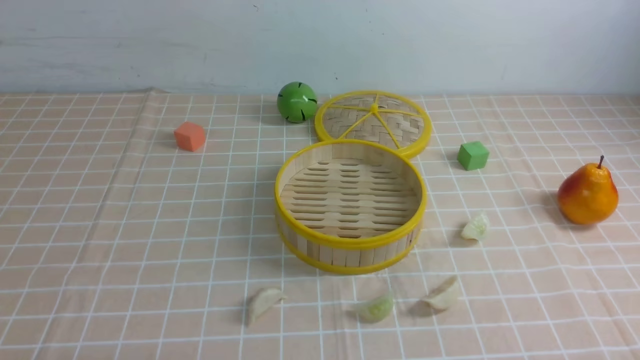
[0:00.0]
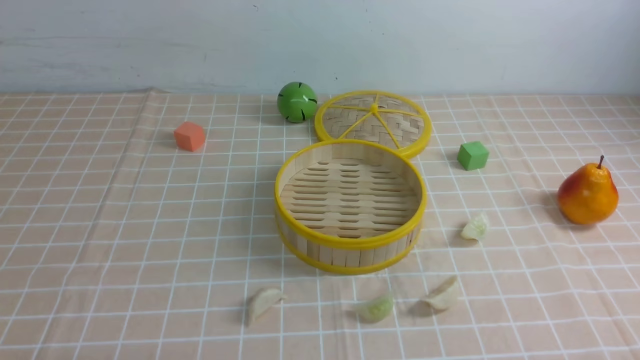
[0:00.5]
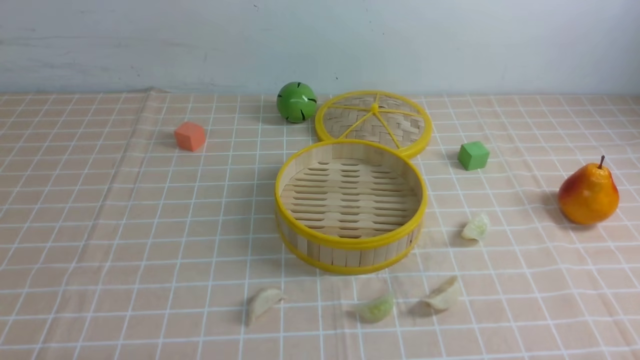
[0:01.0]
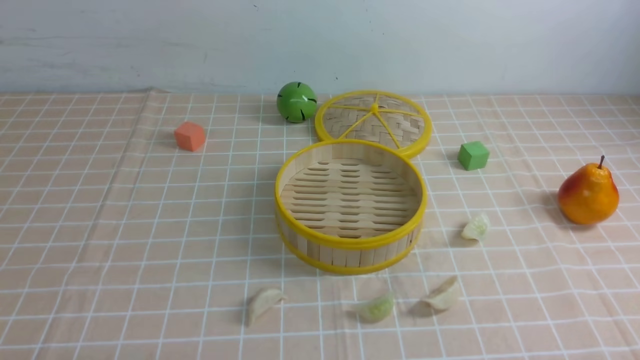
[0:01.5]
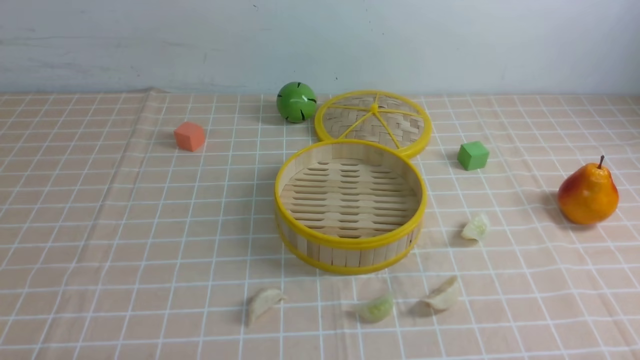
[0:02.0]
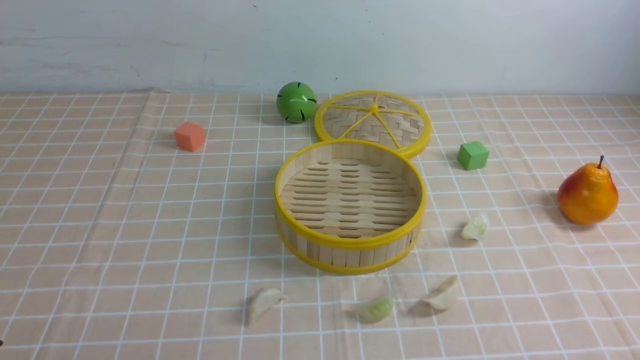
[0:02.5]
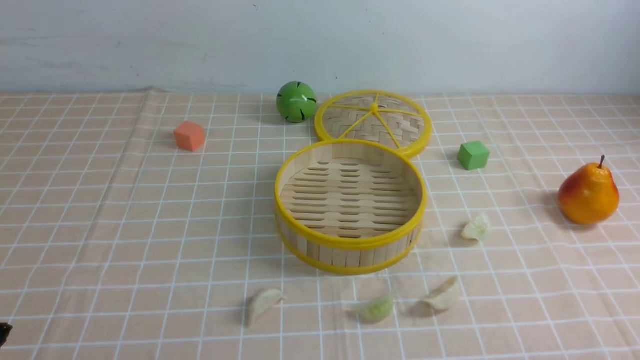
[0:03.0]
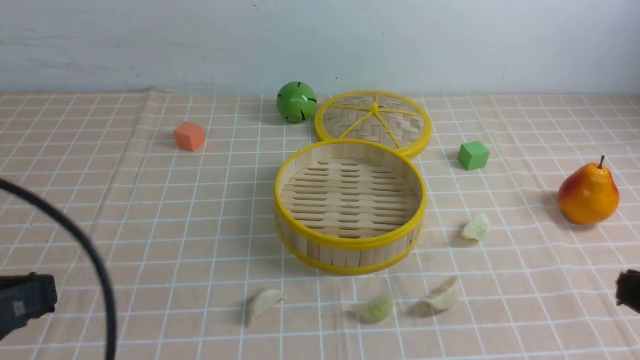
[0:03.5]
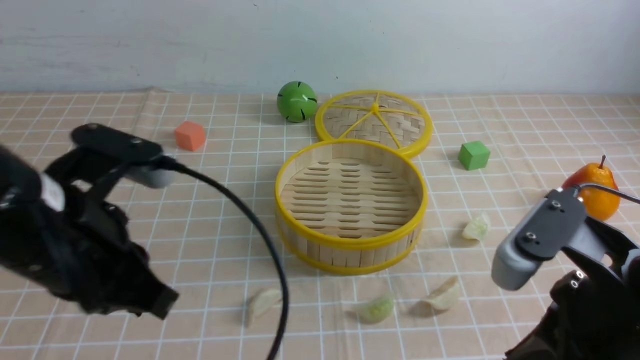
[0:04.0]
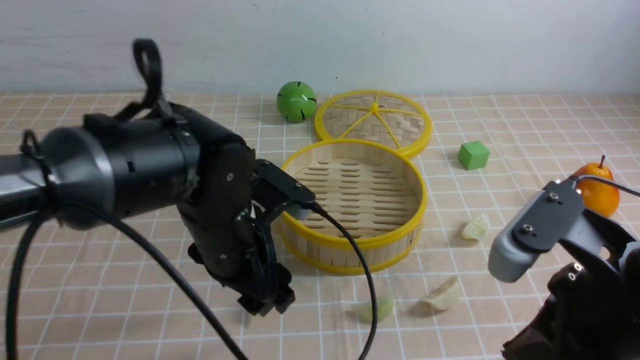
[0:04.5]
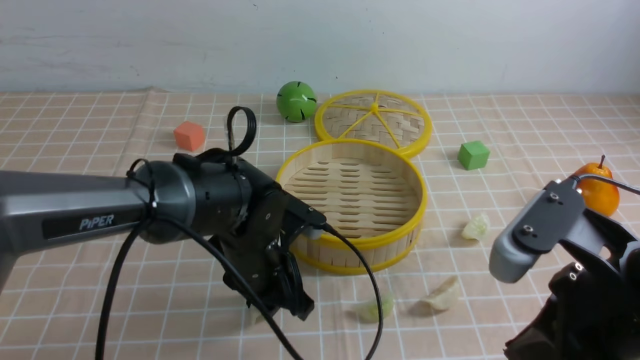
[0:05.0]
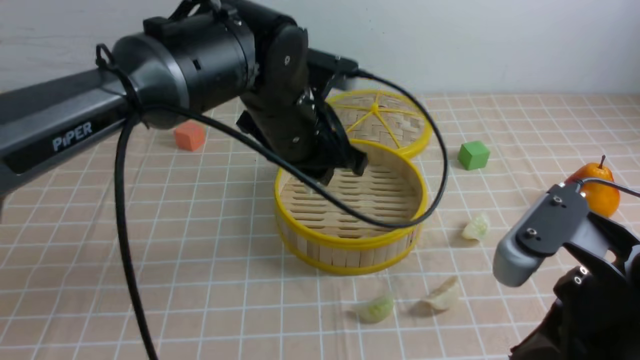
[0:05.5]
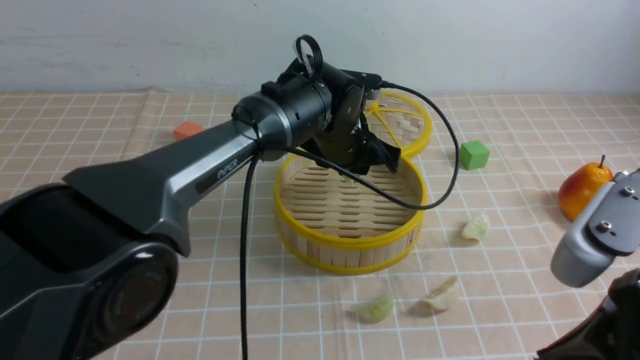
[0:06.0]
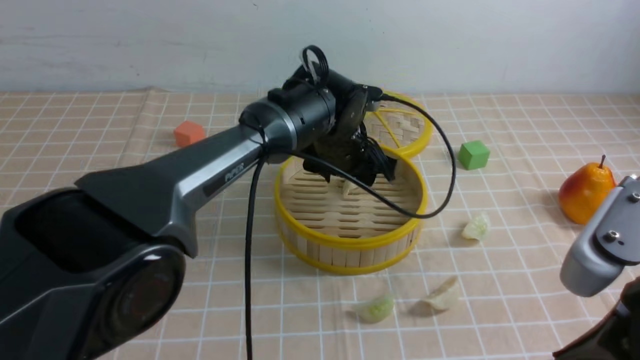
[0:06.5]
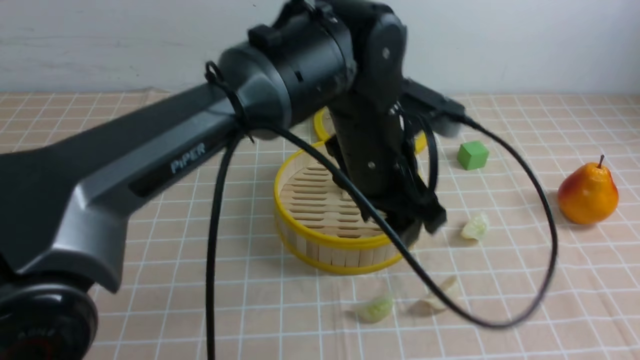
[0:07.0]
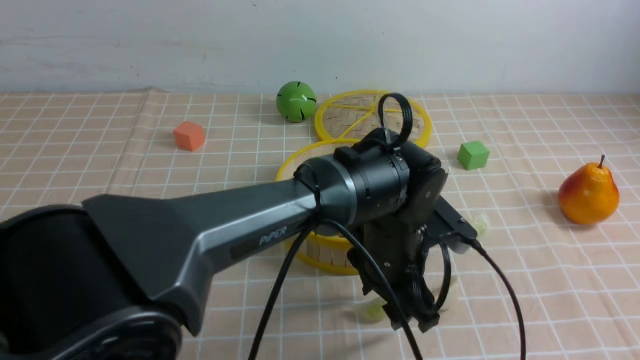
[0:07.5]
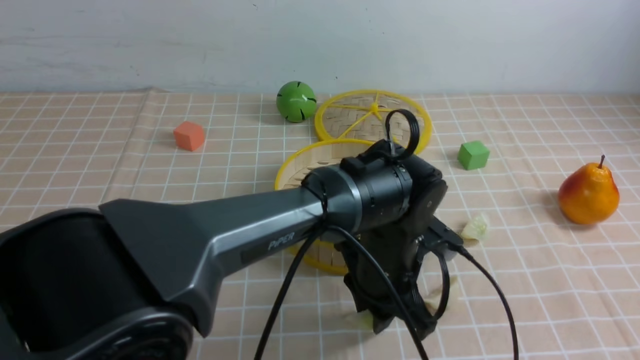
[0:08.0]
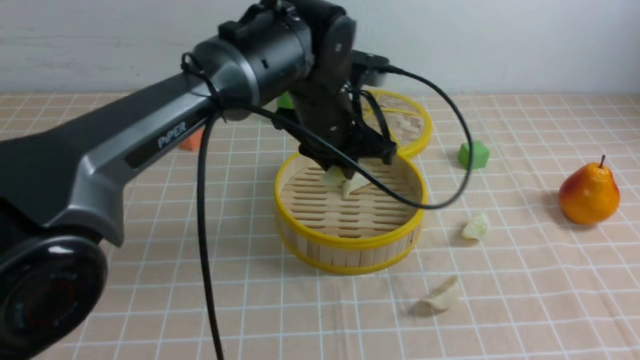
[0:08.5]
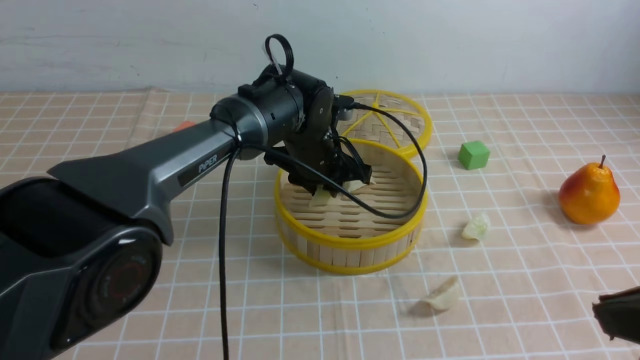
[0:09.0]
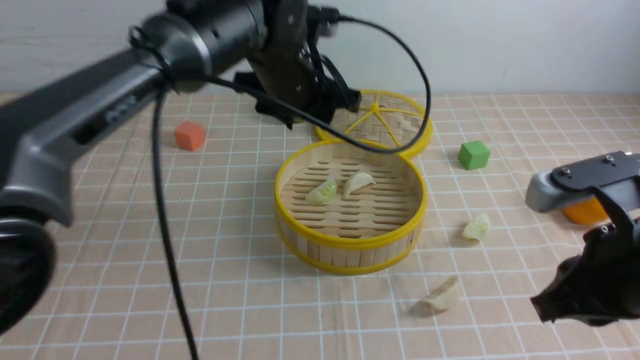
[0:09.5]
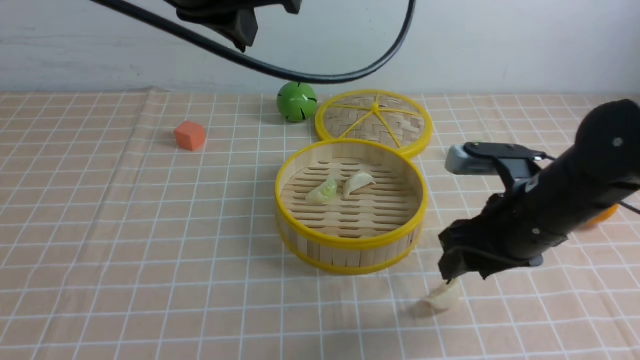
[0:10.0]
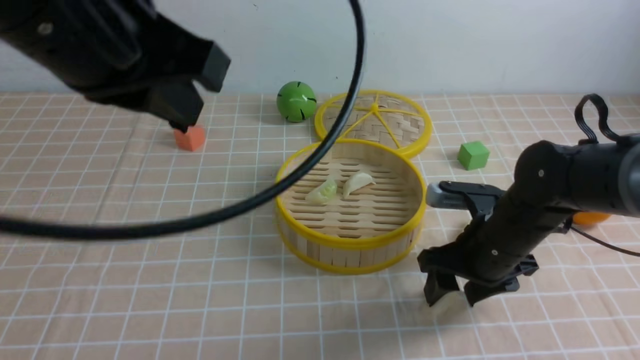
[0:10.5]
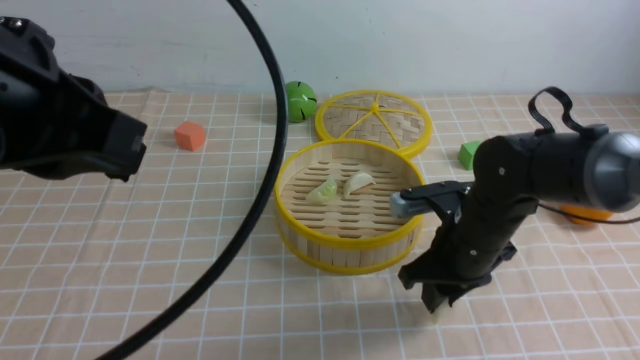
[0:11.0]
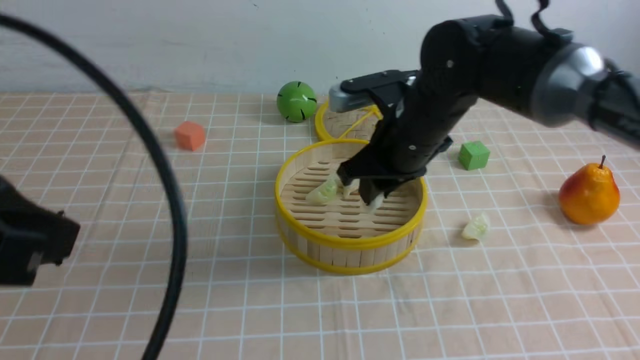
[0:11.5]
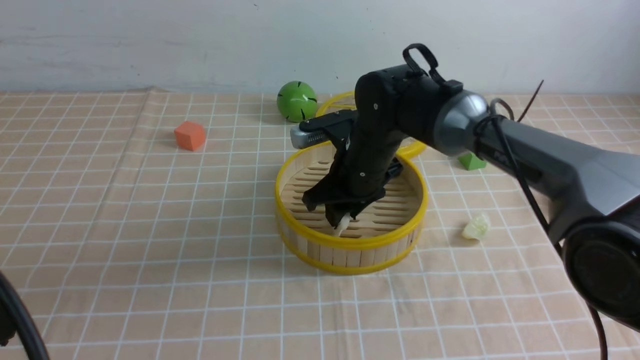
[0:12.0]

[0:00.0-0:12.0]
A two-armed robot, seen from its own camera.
Task of the whole recording: put the dumplings into the steamer on the table with the brown tablecloth.
Step, 0:00.0 to 0:04.5: use the left arm to grab a dumpling.
Step, 0:05.0 to 0:06.5: use the left arm to put the dumpling into the steamer.
Step, 0:07.0 to 0:07.5: use the left arm to grab a dumpling.
Step, 0:08.5 to 0:09.0: use the left arm to put the dumpling into the steamer.
Step, 0:09.5 to 0:10.5: use the right arm to grab a dumpling.
0:00.0 to 0:02.0: The two grippers keep their place.
0:02.0 to 0:04.0: The left gripper goes approximately 25 cm forward, upward and to the right, and closes. Meanwhile the right gripper is displaced upward, to the left and forward by approximately 20 cm, and closes its fingers.
0:04.0 to 0:06.0: The left gripper travels forward and to the right by some 30 cm, and opens its fingers.
0:06.0 to 0:08.0: The right gripper moves to the right, about 5 cm. The left gripper shifts approximately 15 cm backward and to the right, and opens, then closes once more.
0:08.0 to 0:10.0: The left gripper swings up and down, approximately 25 cm each way, with 2 reversals, and closes its fingers. The right gripper goes about 25 cm forward and downward, and opens up.
0:10.0 to 0:12.0: The left gripper heads backward and to the left, covering about 25 cm; the right gripper moves to the left and forward, some 20 cm.

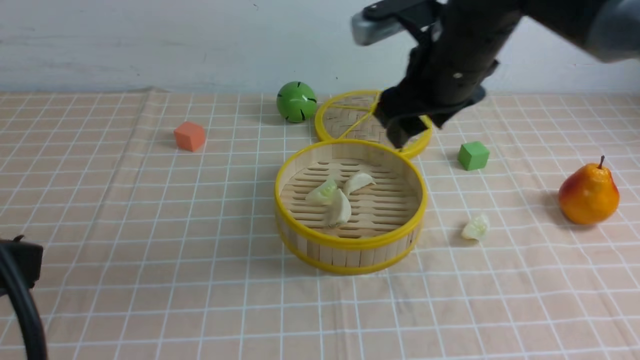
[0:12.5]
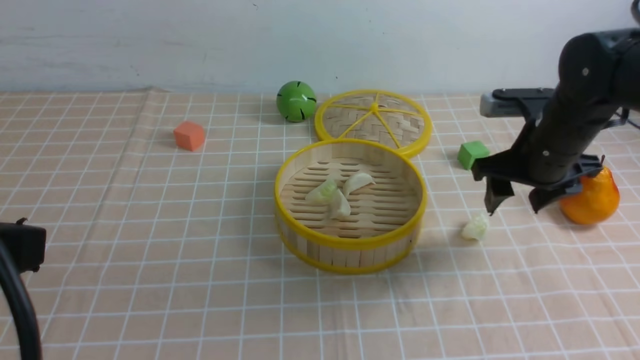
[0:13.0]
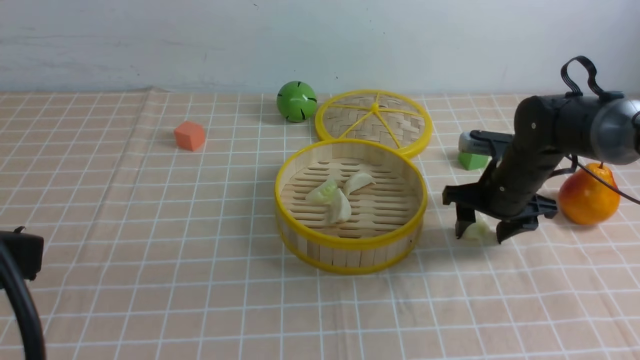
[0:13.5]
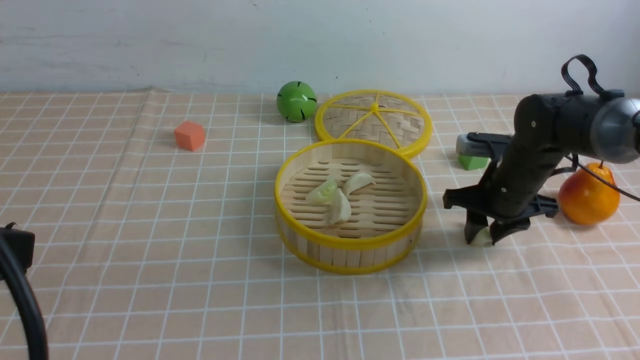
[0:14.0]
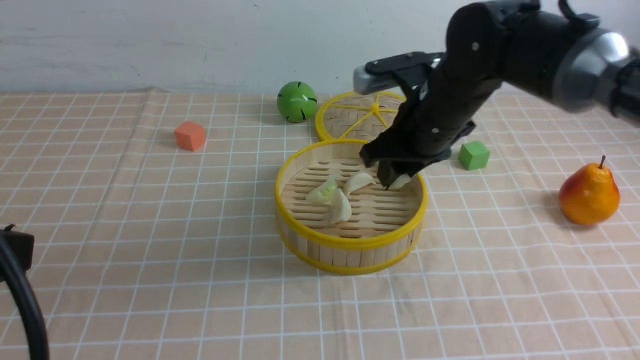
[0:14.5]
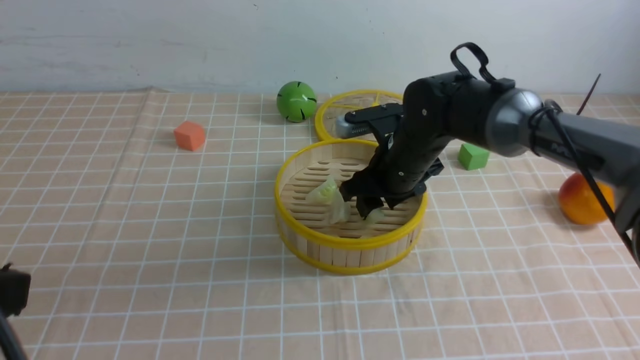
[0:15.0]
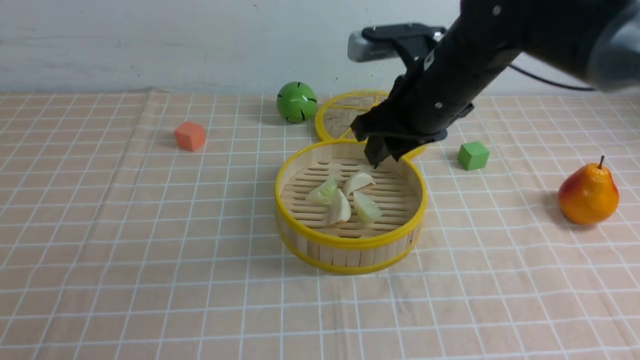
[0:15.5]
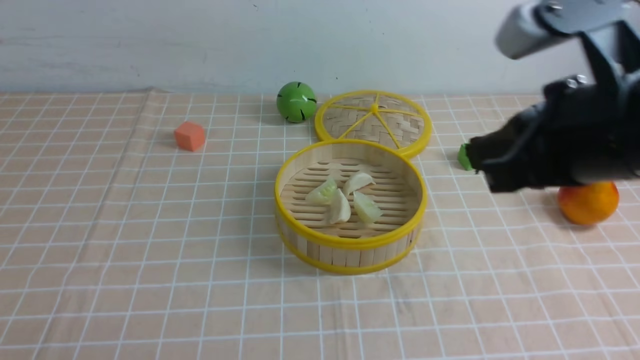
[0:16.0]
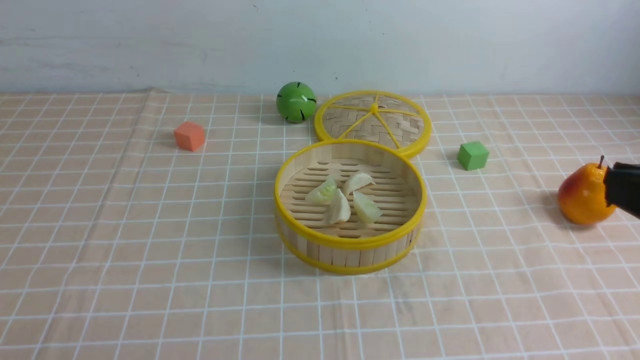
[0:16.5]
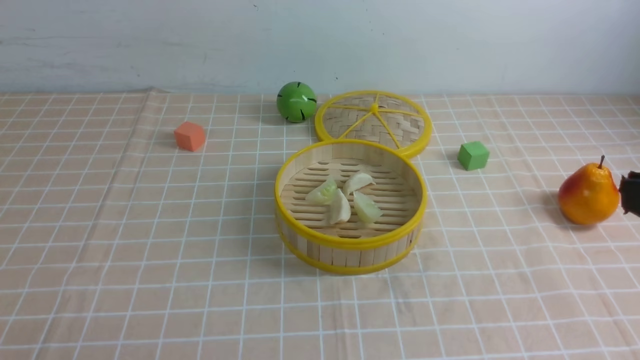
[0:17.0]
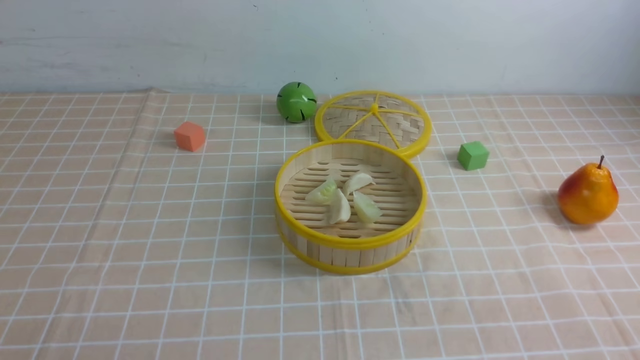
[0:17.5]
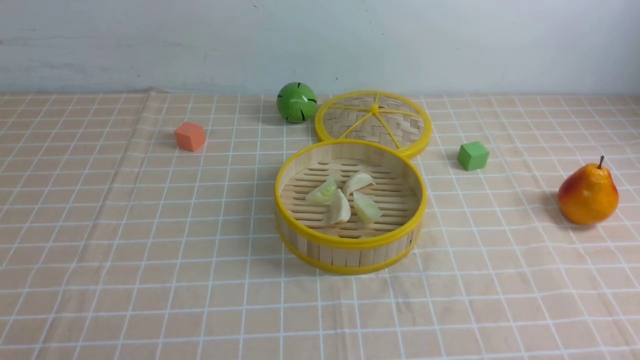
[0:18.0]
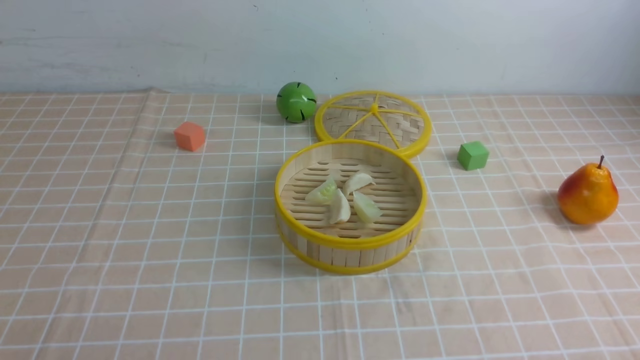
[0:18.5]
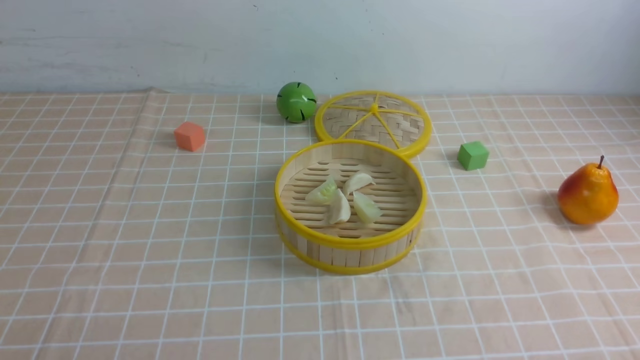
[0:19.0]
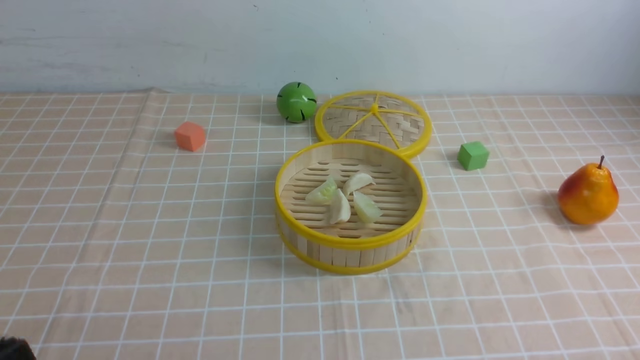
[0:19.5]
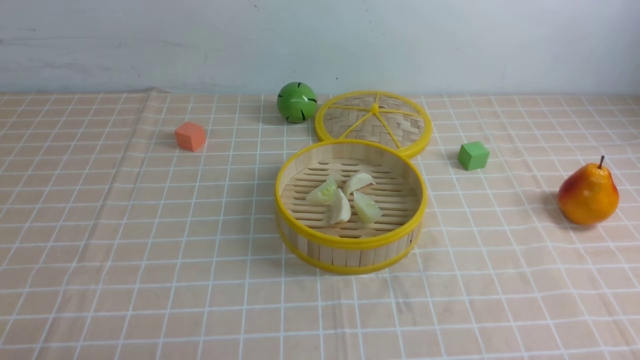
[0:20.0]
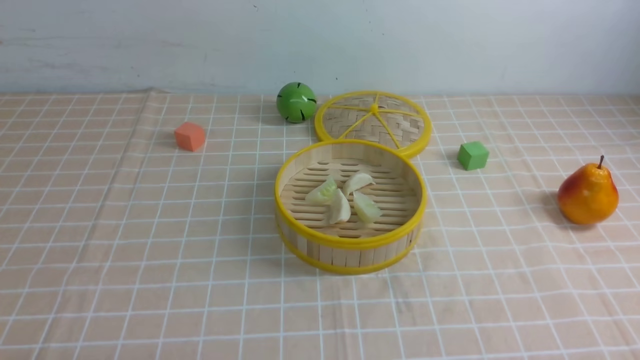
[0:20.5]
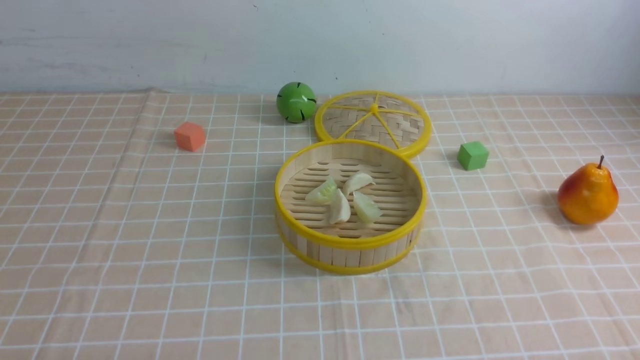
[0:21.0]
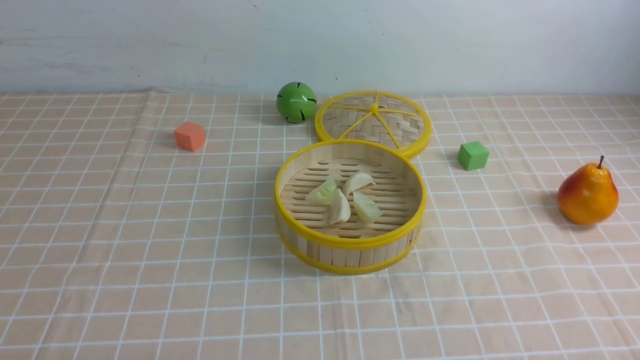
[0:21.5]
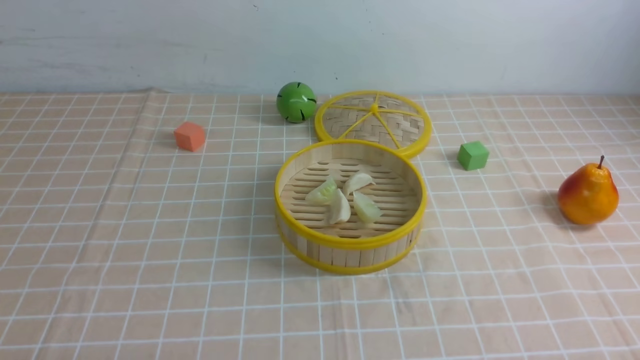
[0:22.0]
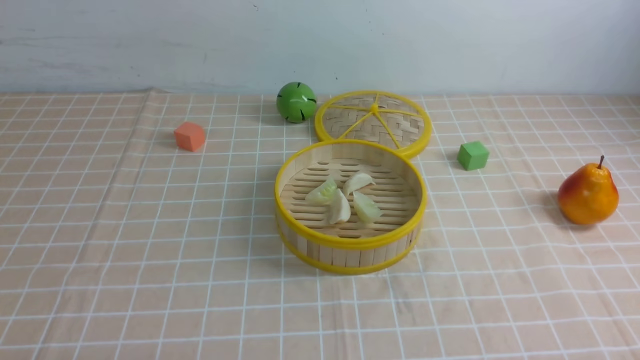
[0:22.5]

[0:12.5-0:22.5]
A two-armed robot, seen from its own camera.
Task of the whole recording: put the dumplings into the steamer on the table with the brown tablecloth.
Step, 0:12.5 to 0:13.5: use the right arm to grab a dumpling.
Step, 0:14.0 to 0:15.0: use the right arm to put the dumpling into the steamer.
0:12.5 to 0:14.5: The right gripper goes approximately 5 cm downward, and closes up.
0:14.5 to 0:16.5: The left gripper moves downward and backward, roughly 15 cm. Meanwhile the right gripper is displaced backward by some 30 cm, and closes.
0:16.5 to 0:18.5: The right gripper moves downward, roughly 20 cm.
0:20.5 to 0:22.5: Neither gripper changes place.
